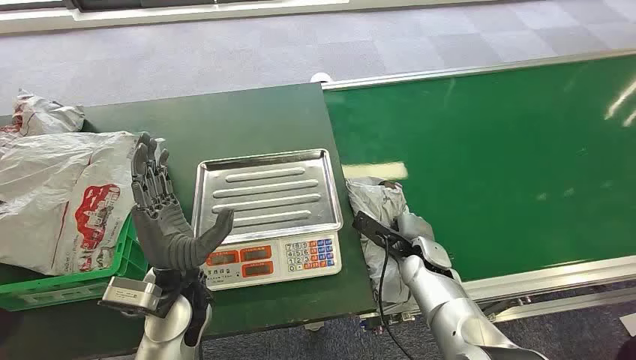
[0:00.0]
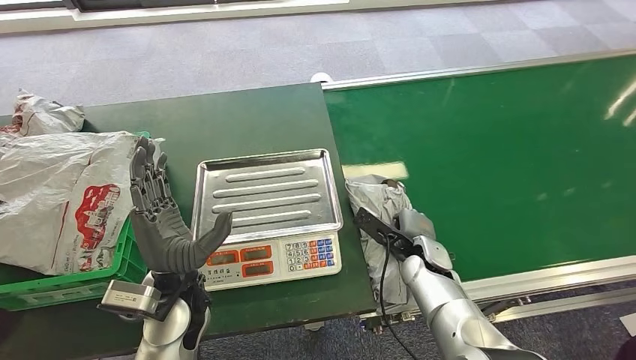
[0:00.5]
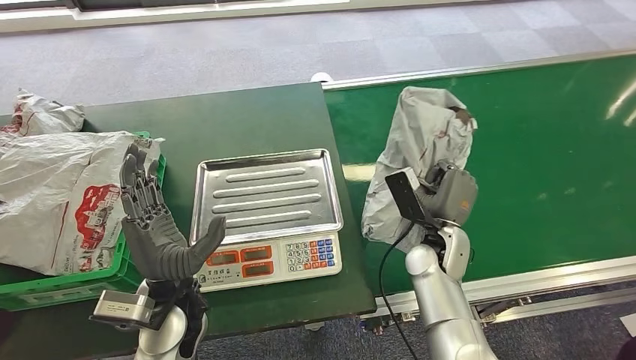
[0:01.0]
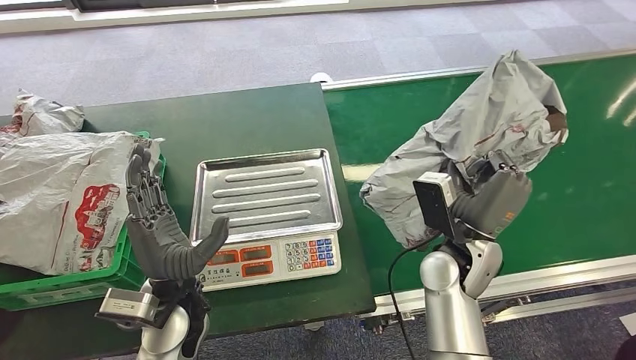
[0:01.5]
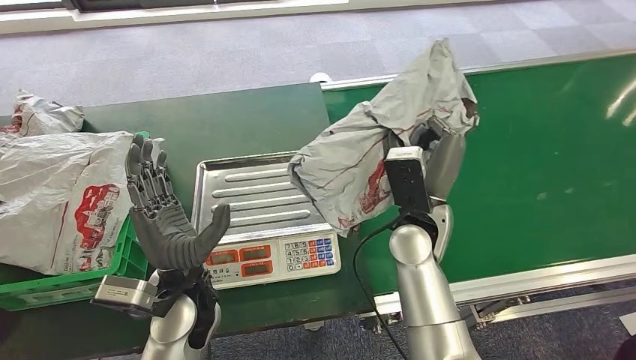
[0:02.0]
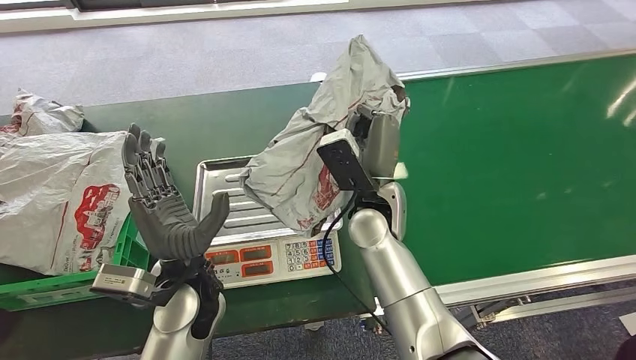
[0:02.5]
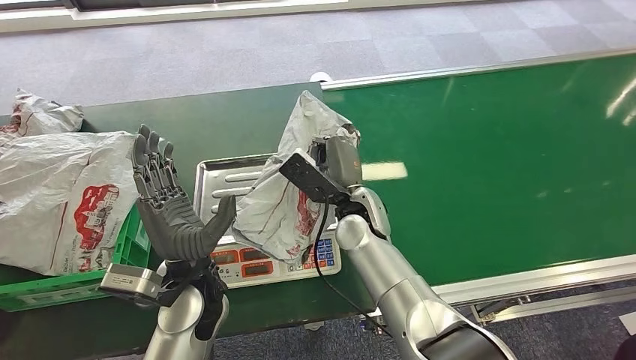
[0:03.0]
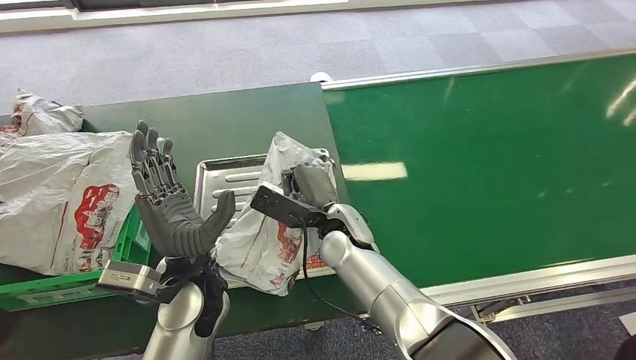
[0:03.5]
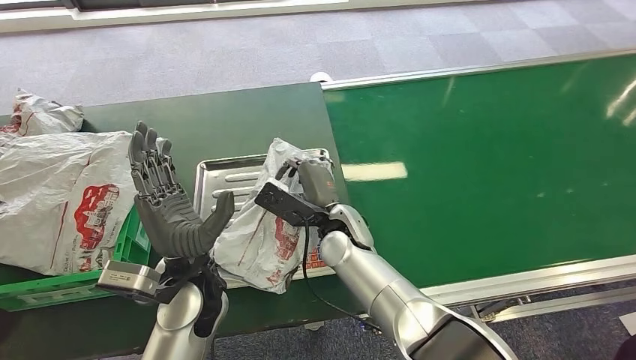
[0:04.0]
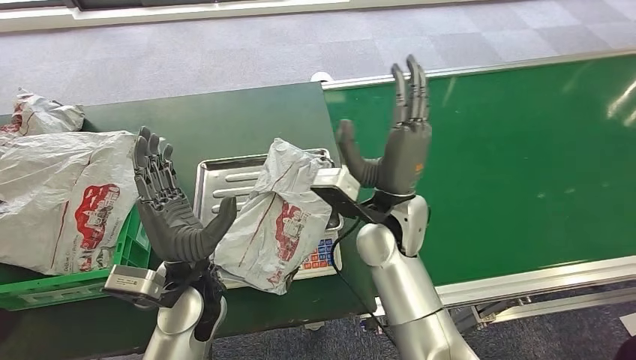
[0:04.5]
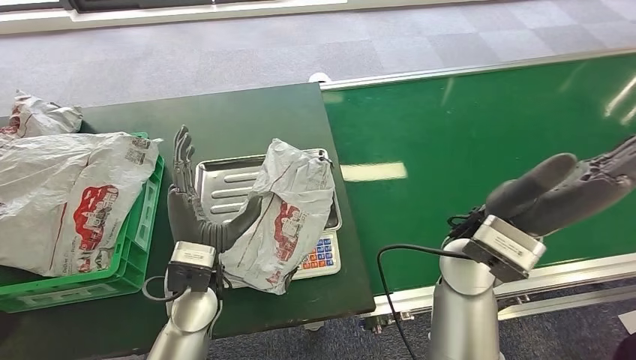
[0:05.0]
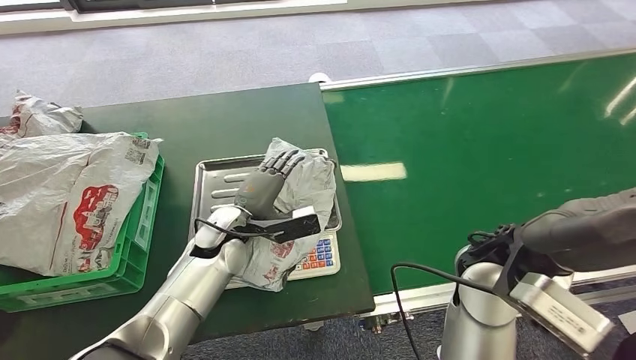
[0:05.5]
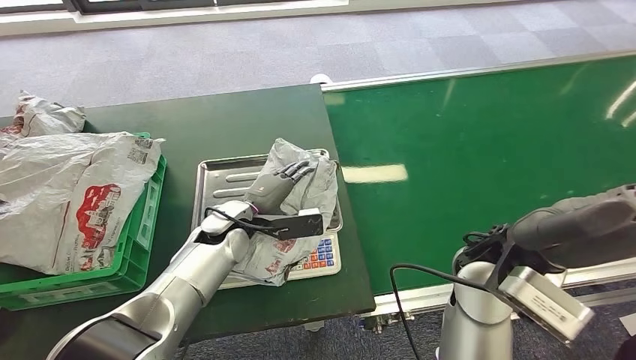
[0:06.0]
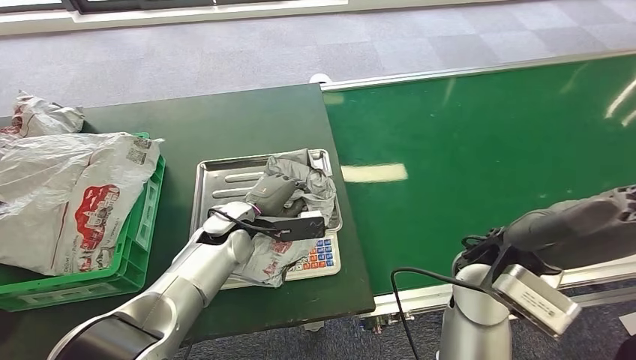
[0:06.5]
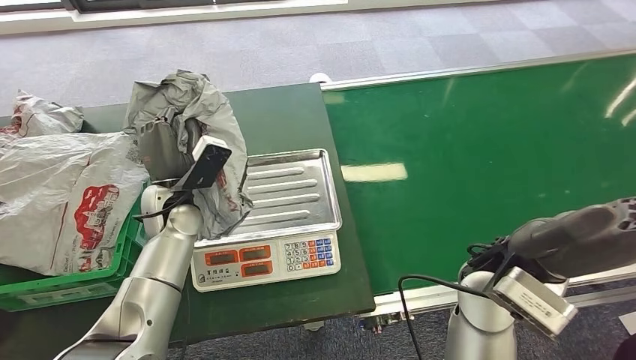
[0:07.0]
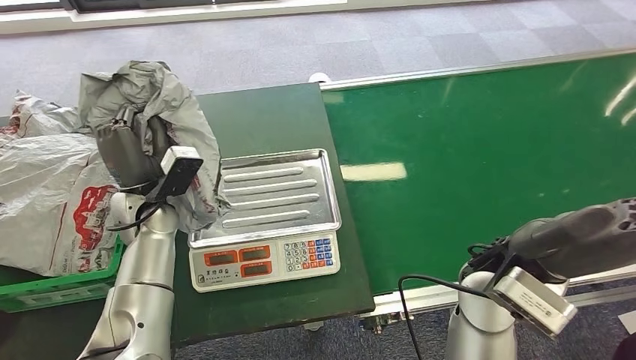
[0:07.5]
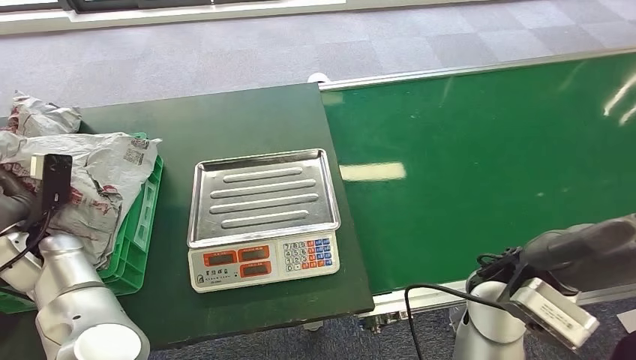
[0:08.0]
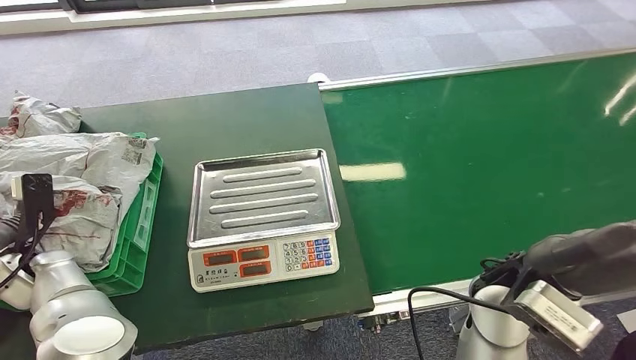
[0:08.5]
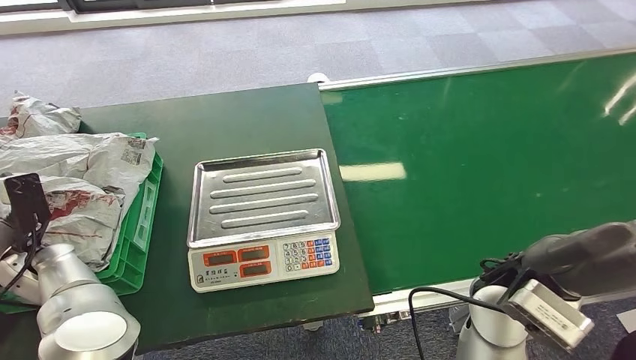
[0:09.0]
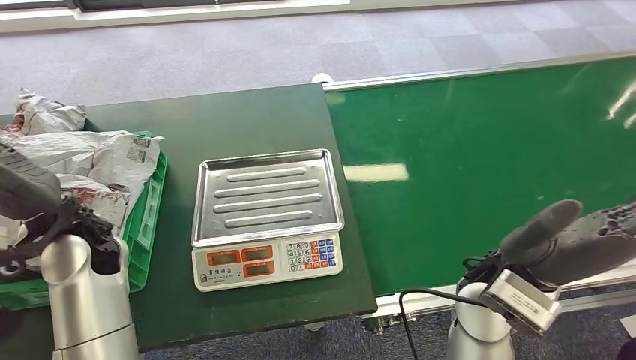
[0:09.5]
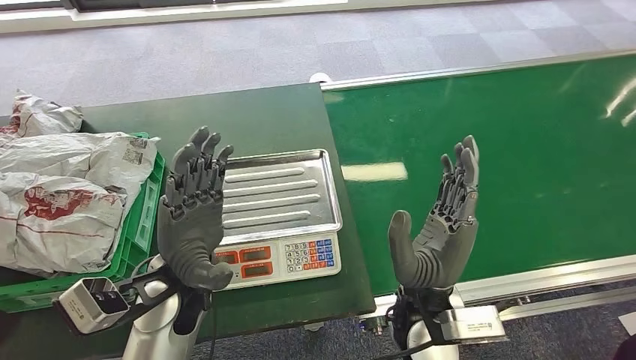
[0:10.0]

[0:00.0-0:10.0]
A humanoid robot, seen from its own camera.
Step, 0:00.0 to 0:02.0: Pick up the package from the conveyor belt.
Step, 0:02.5 to 0:05.0: Place the package onto the inbound machine.
Step, 0:05.5 to 0:08.0: Pick up the package from the inbound machine.
Step, 0:08.5 to 0:10.0: Place the package into the parcel locker.

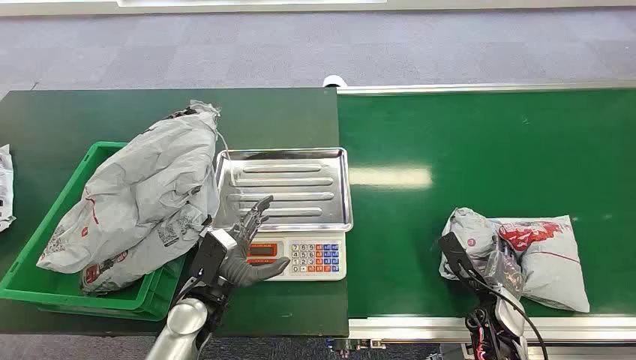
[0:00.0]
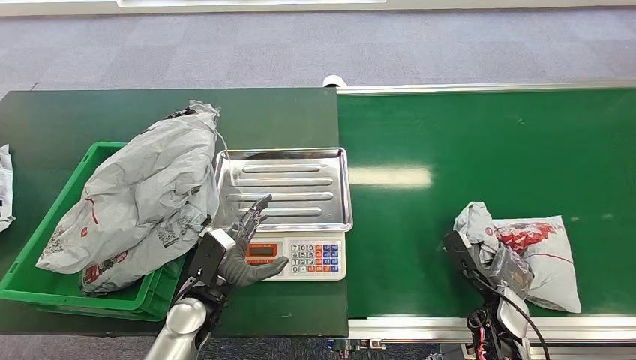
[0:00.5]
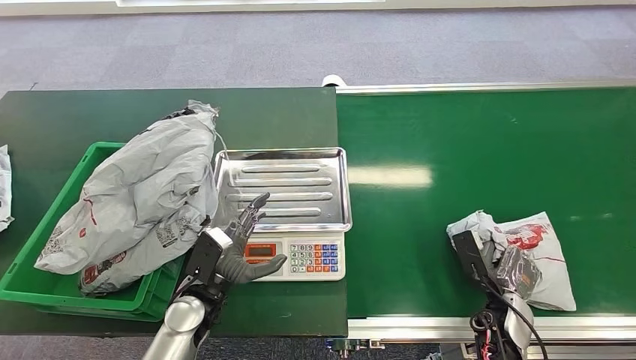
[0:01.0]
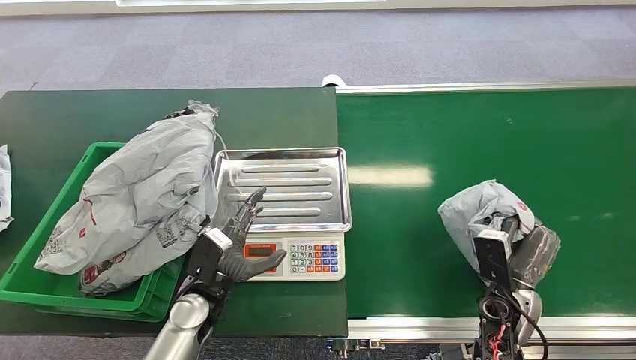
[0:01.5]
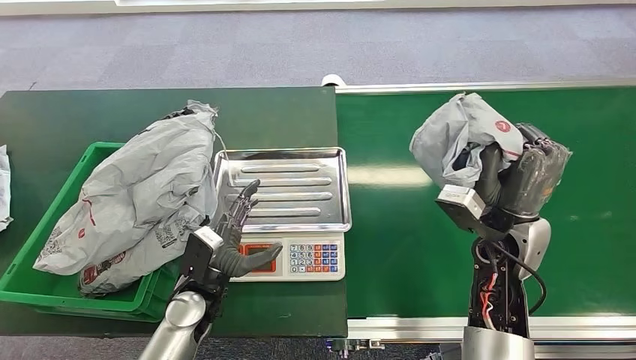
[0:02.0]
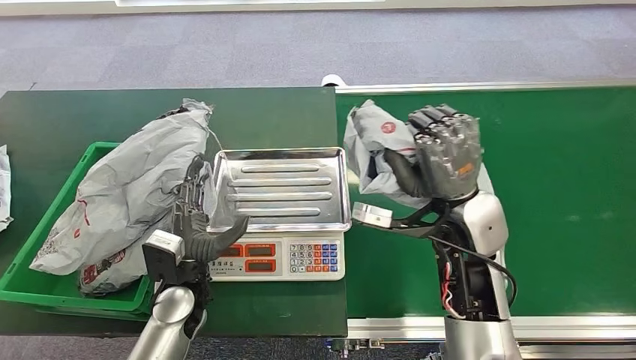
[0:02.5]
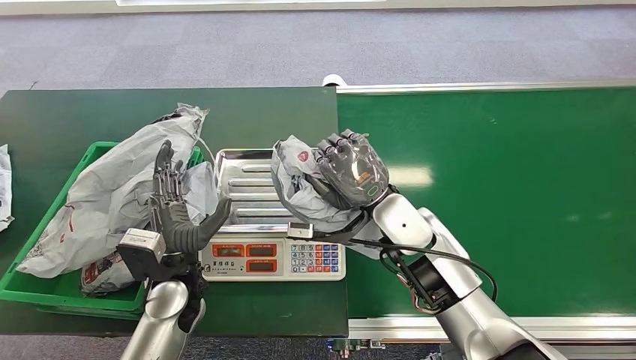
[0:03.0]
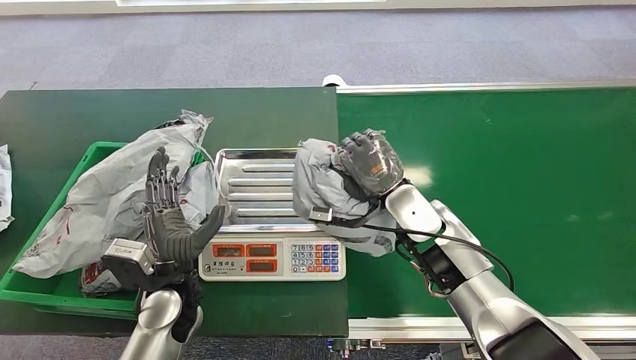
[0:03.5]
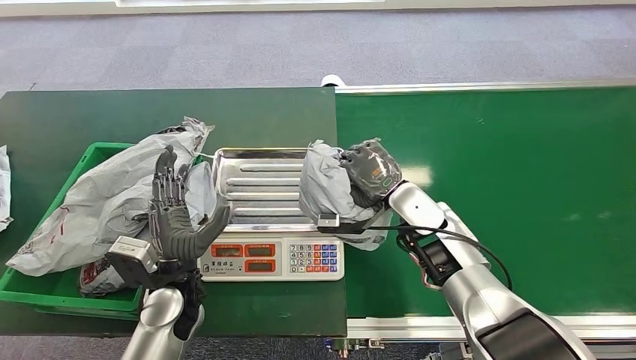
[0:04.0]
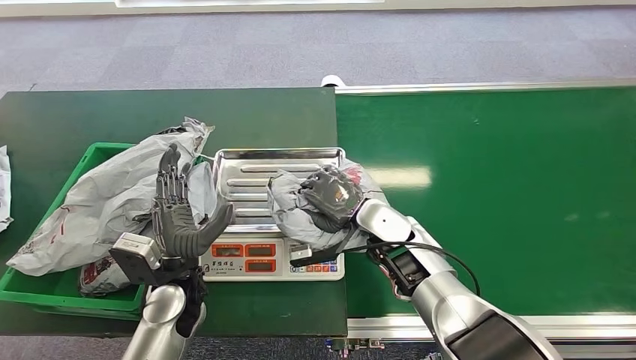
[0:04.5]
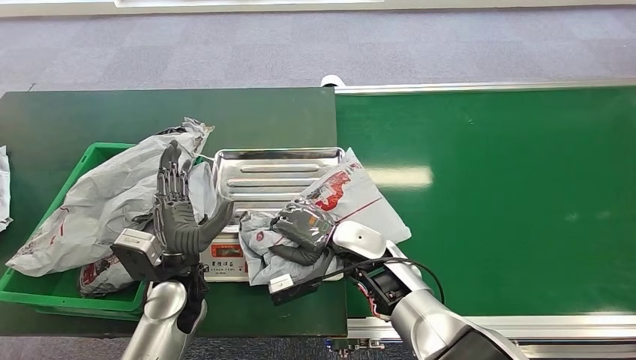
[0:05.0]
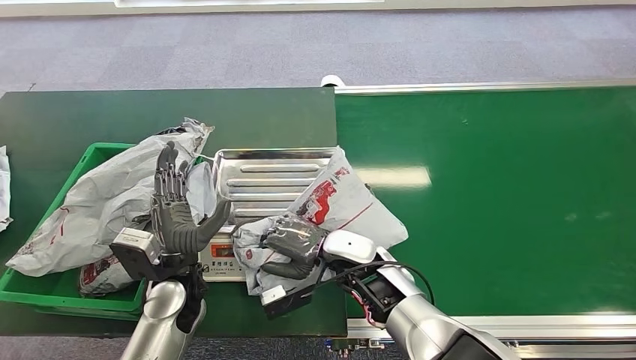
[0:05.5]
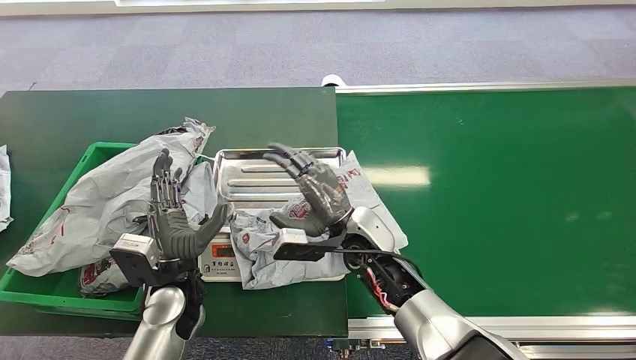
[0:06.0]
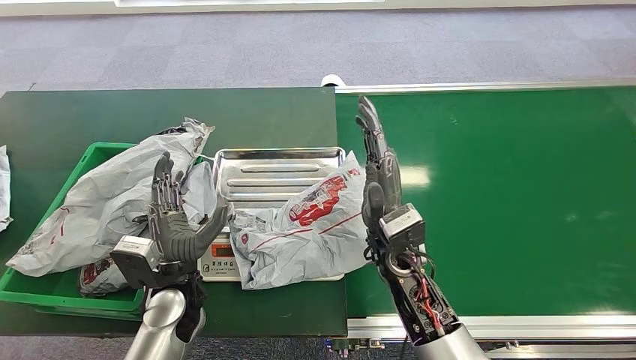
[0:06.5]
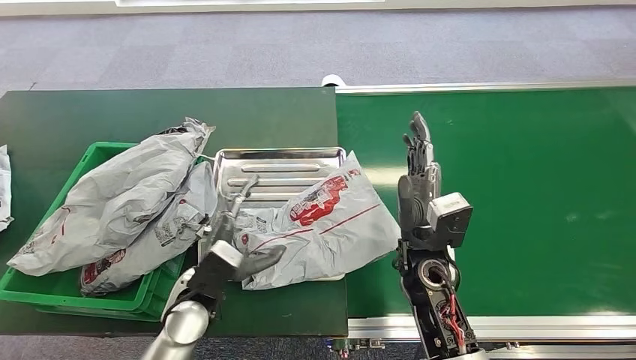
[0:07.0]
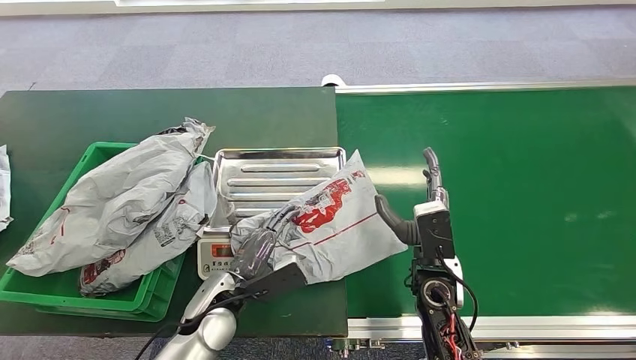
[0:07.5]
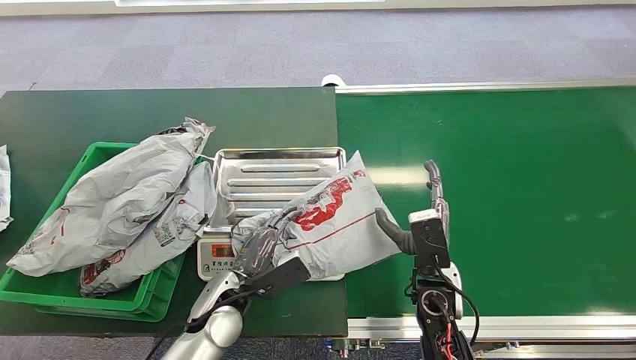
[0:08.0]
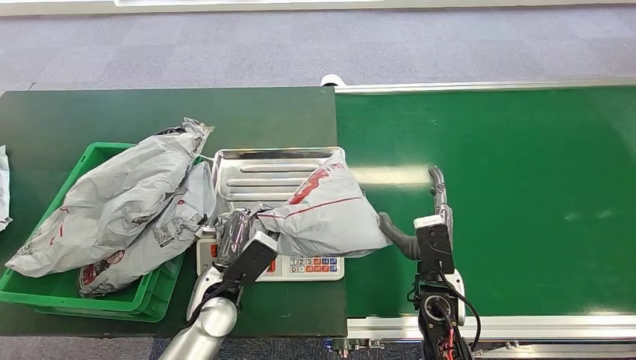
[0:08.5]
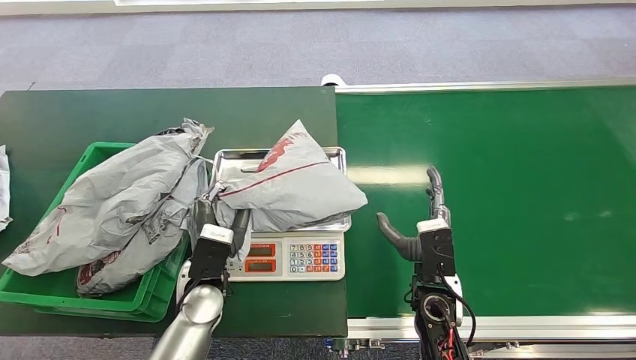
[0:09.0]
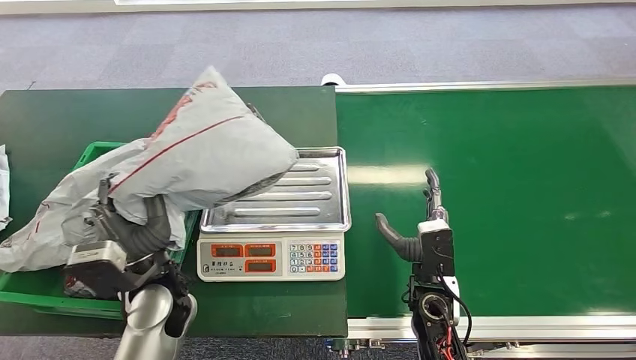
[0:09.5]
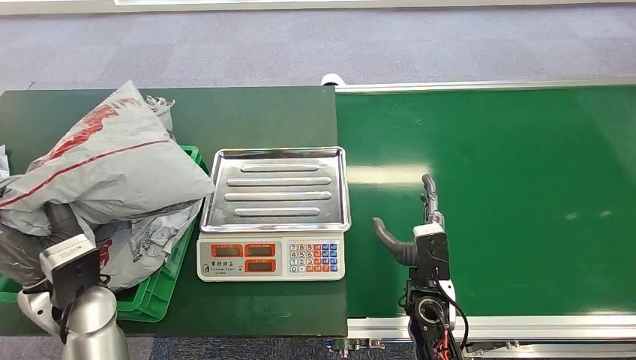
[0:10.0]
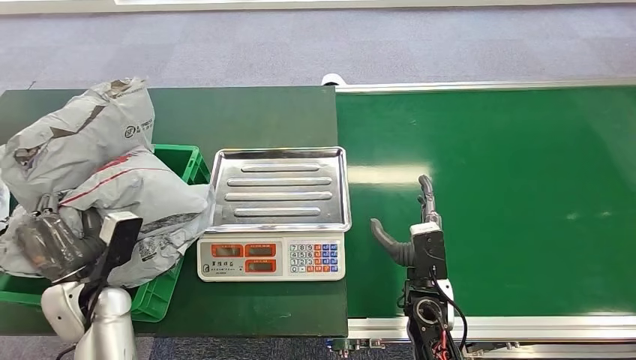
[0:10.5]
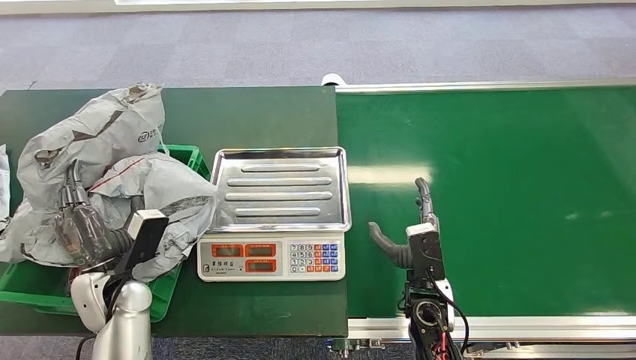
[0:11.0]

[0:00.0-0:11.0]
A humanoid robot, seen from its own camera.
Step, 0:00.0 to 0:02.0: Pick up the package from the conveyor belt.
Step, 0:04.0 to 0:05.5: Place the package onto the inbound machine.
Step, 0:09.0 to 0:09.5: Pick up the package from the inbound machine.
Step, 0:10.0 to 0:11.0: Place the package into the parcel locker.
0:05.5 to 0:07.5: The left hand moves to the right, approximately 5 cm; the right hand goes roughly 10 cm to the right.
